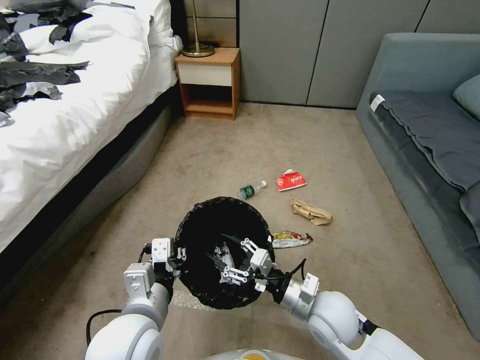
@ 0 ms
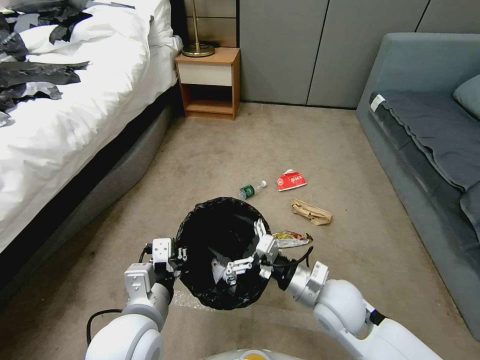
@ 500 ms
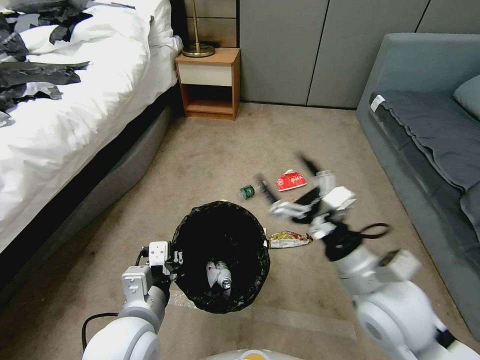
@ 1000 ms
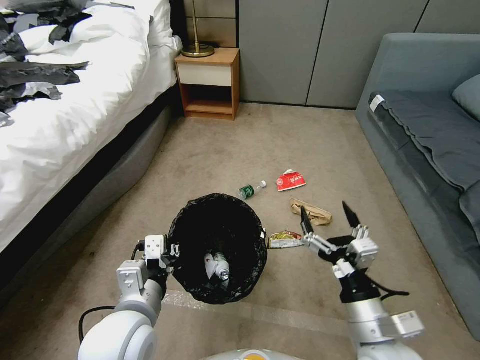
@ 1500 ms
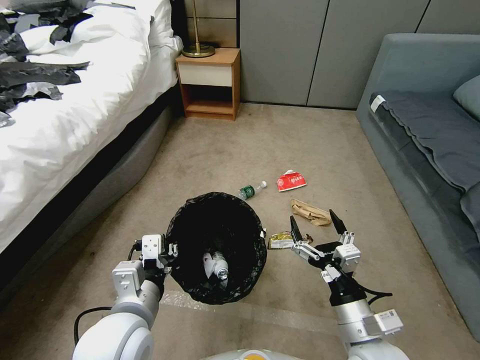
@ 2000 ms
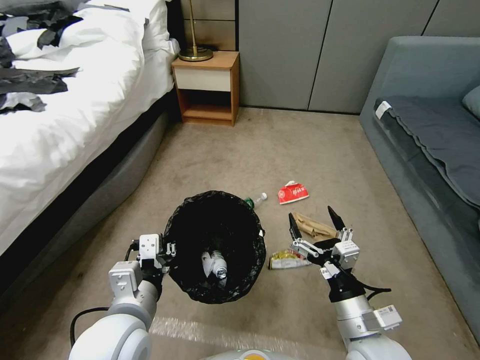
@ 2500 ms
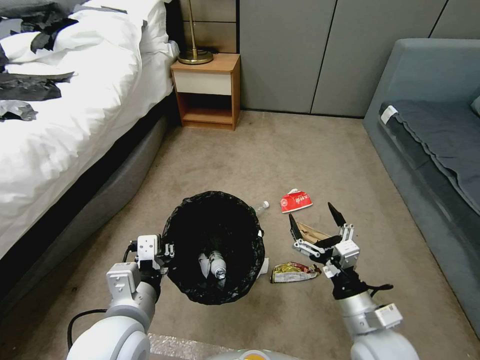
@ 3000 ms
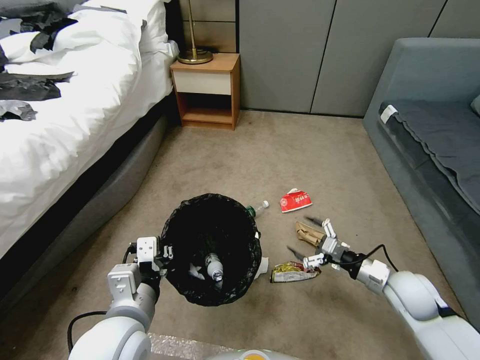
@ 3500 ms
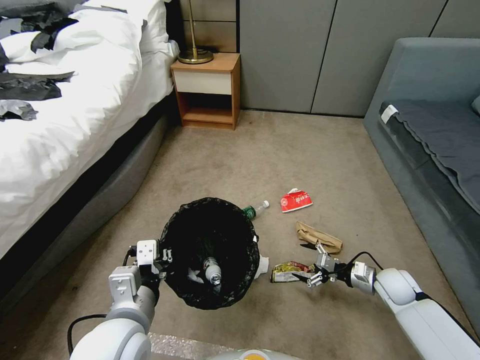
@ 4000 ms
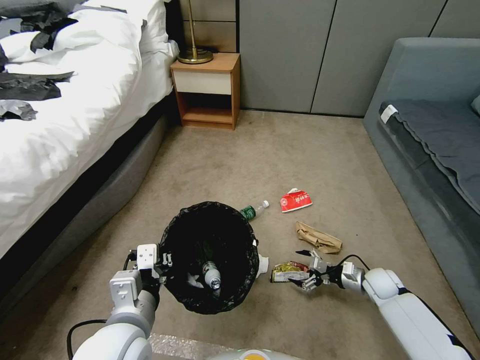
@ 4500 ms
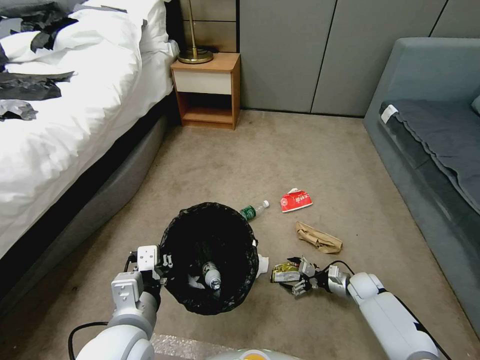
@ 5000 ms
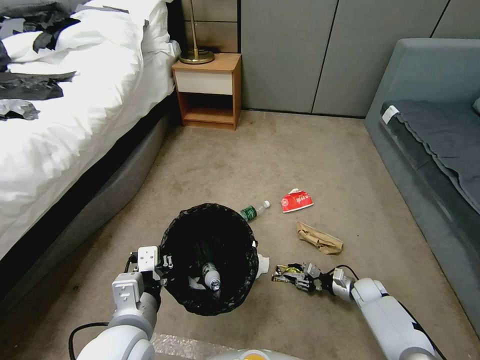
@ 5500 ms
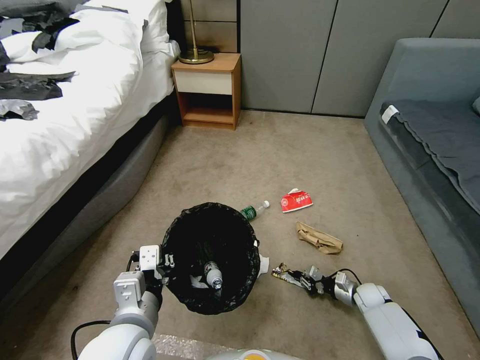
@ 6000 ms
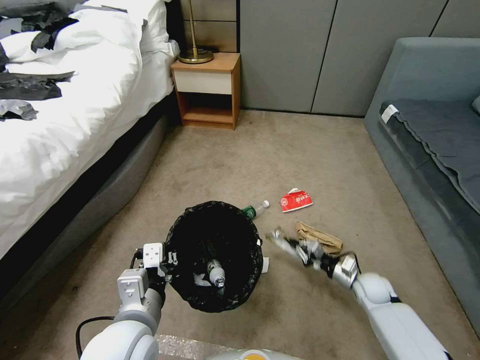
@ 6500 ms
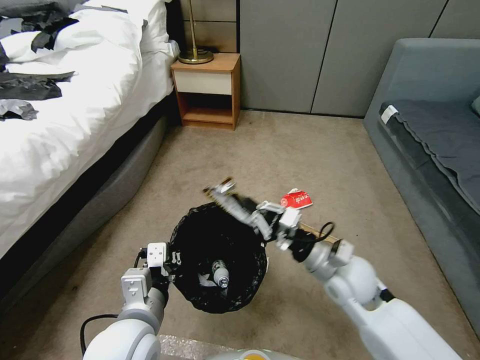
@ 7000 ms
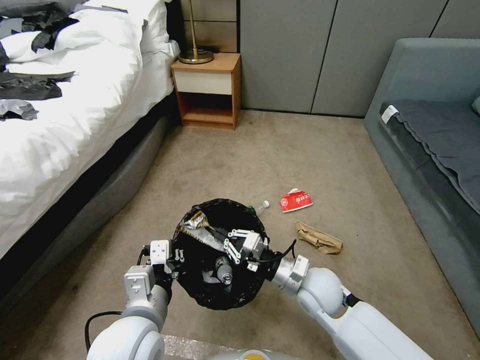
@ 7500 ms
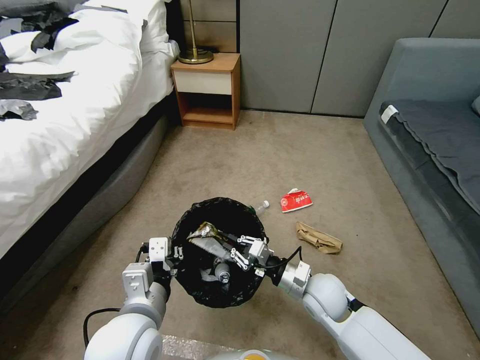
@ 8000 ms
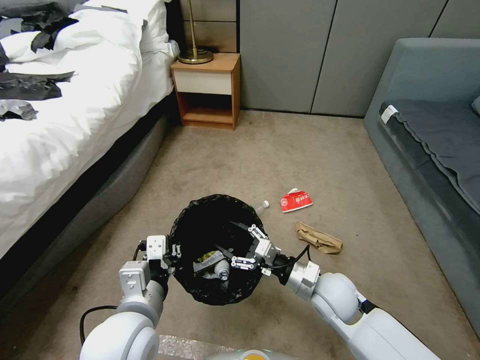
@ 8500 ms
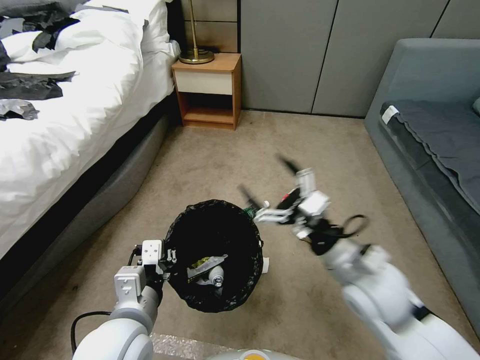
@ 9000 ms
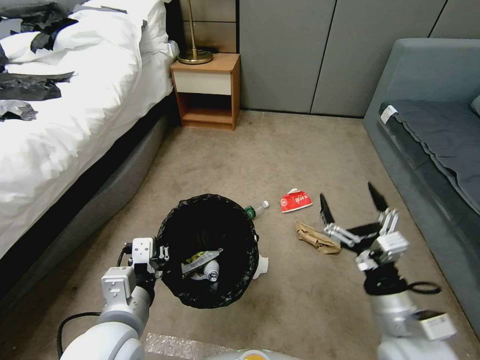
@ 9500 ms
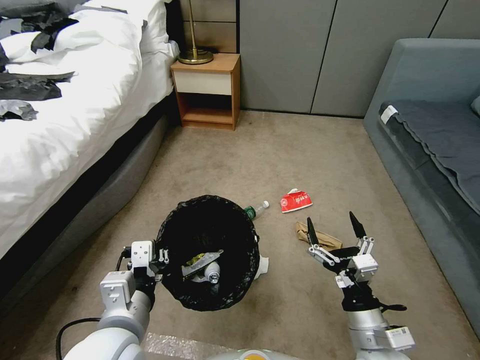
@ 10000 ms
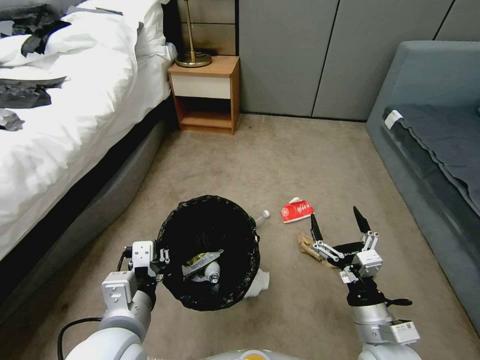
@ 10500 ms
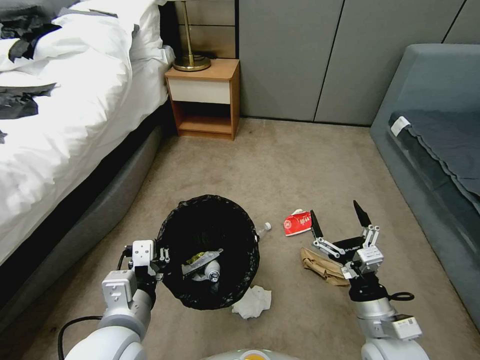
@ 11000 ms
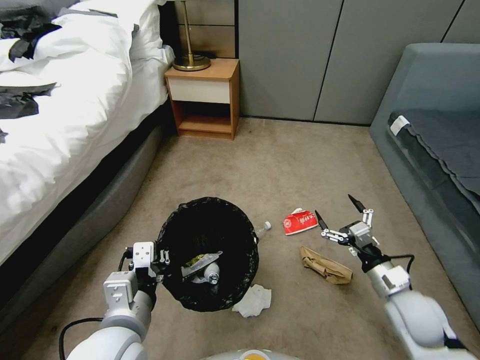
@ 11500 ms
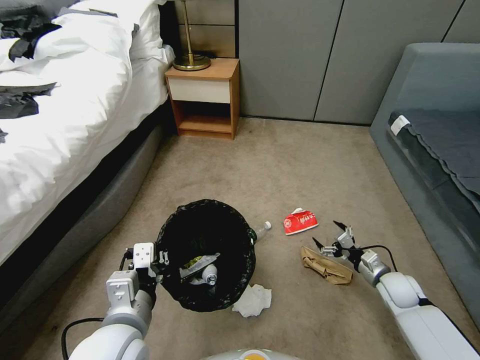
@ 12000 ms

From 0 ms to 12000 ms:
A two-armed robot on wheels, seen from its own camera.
Task of the whole recording: Pick up the trash bin, then pick up the garbage from the floor and place it into the trash bin.
From 0 ms to 2000 ms: The right gripper goes about 10 cm backward, travels upward and back again, approximately 15 cm each way, and opens its fingers.
From 2000 ms to 4000 ms: The right gripper moves to the right, forward and downward, about 30 cm.
From 4000 ms to 6000 ms: The right gripper heads downward, covering roughly 15 cm, and closes up.
From 6000 ms to 8000 ms: The right gripper travels to the left and upward by roughly 30 cm.
From 8000 ms to 10000 ms: The right gripper is displaced backward and to the right by roughly 15 cm, reaches some 15 cm upward, then returns, and opens its fingers.
From 10000 ms to 12000 ms: The right gripper is displaced forward, to the right and downward by roughly 30 cm.

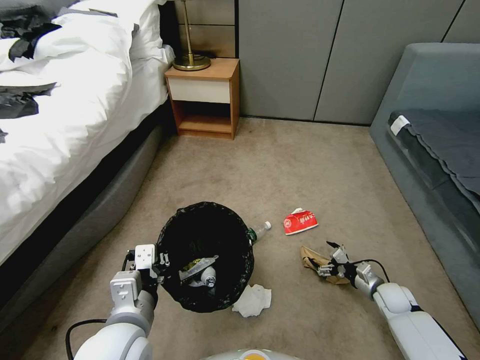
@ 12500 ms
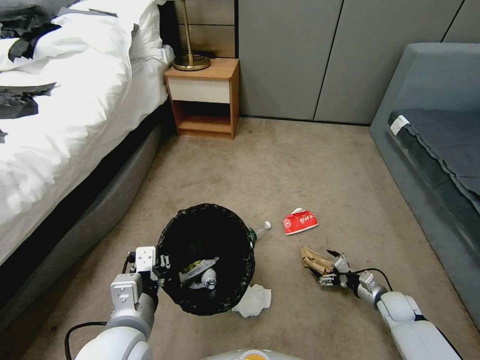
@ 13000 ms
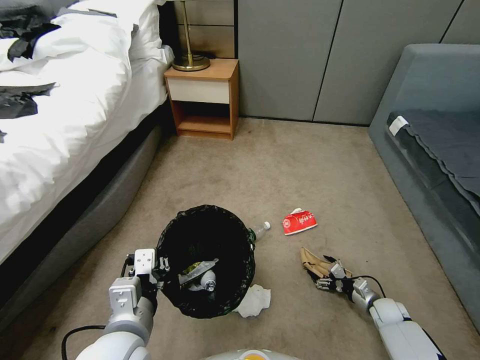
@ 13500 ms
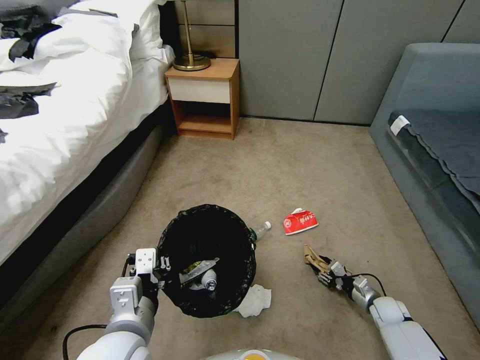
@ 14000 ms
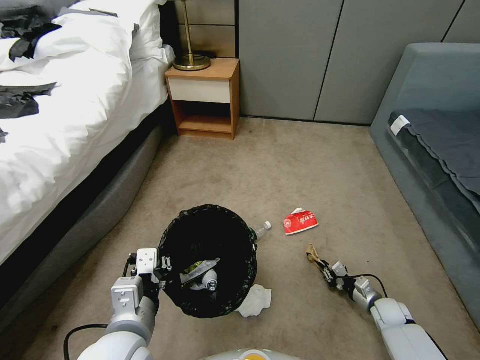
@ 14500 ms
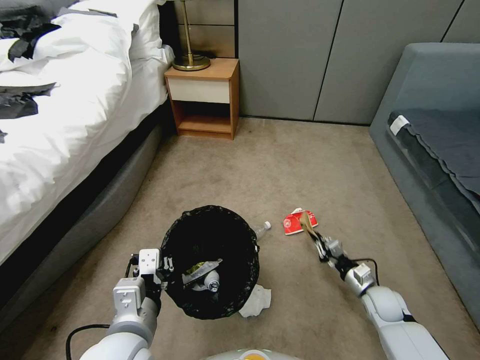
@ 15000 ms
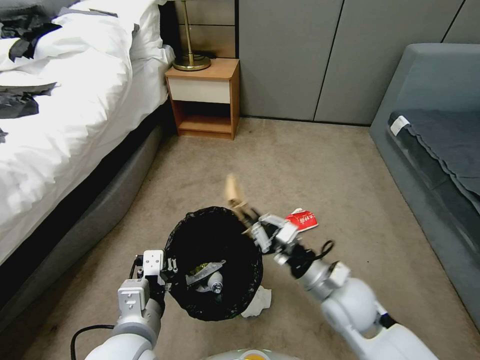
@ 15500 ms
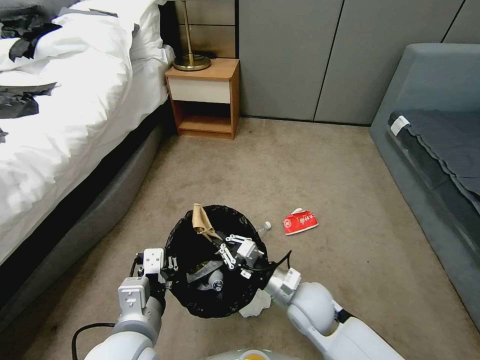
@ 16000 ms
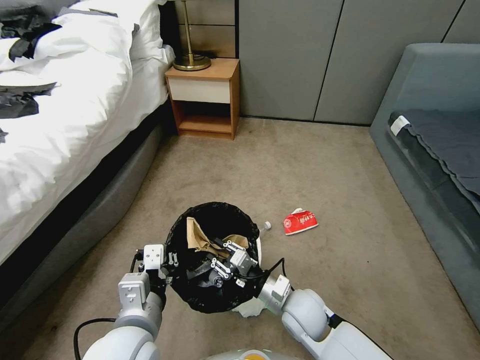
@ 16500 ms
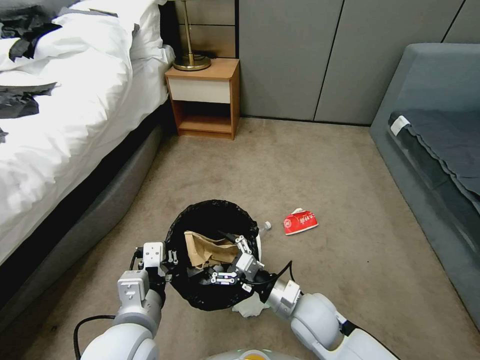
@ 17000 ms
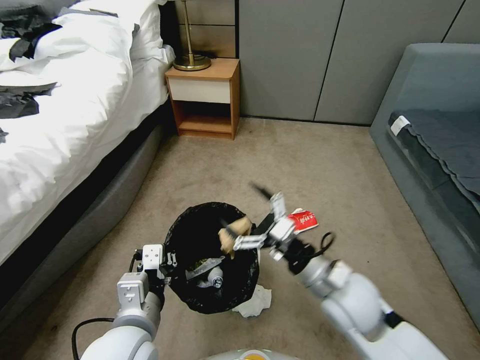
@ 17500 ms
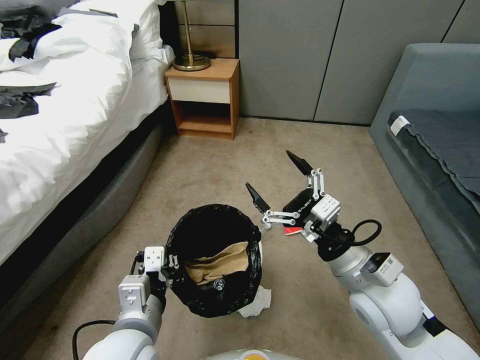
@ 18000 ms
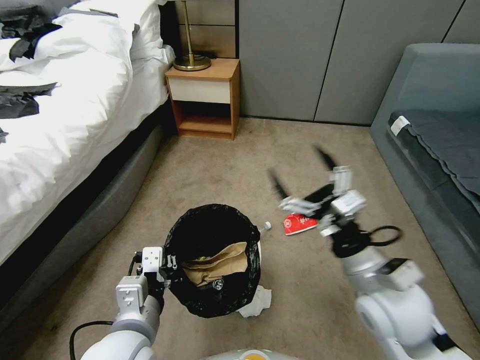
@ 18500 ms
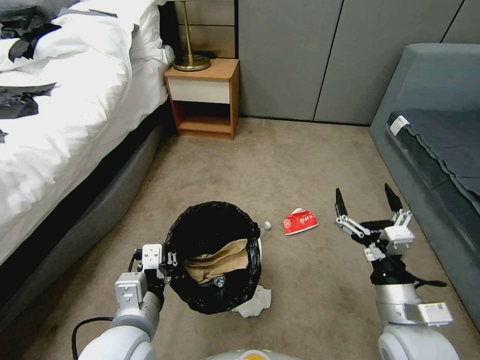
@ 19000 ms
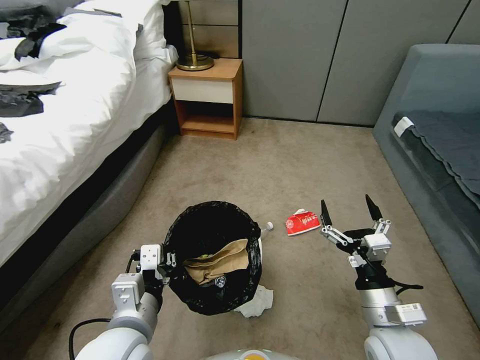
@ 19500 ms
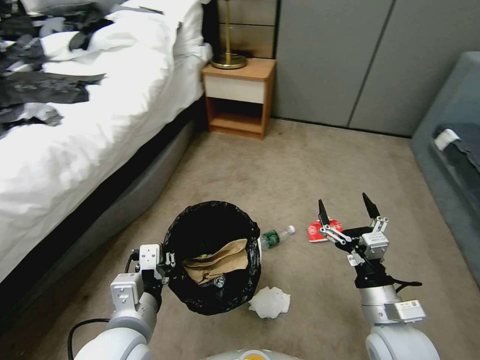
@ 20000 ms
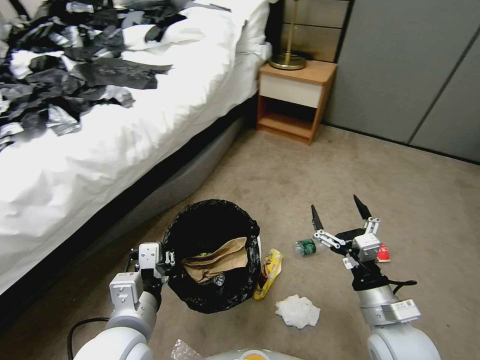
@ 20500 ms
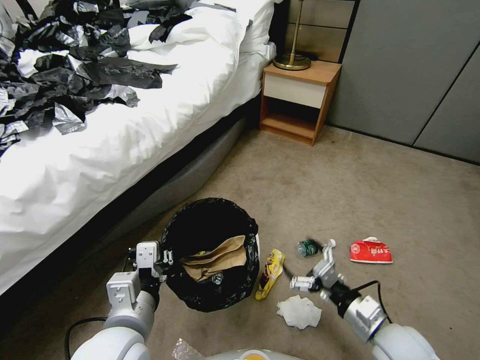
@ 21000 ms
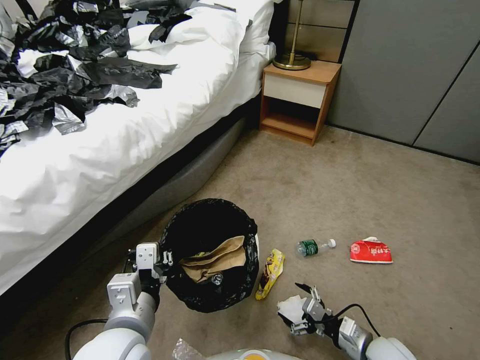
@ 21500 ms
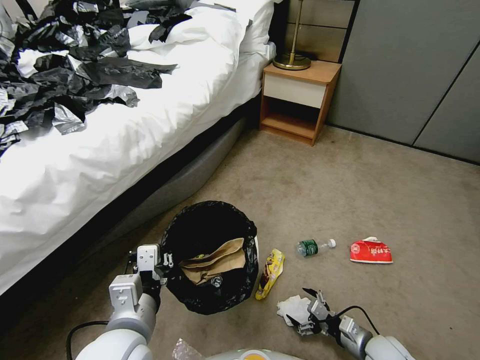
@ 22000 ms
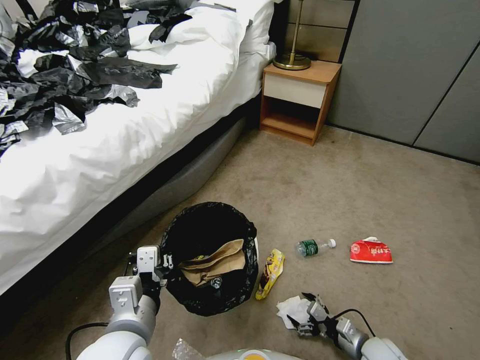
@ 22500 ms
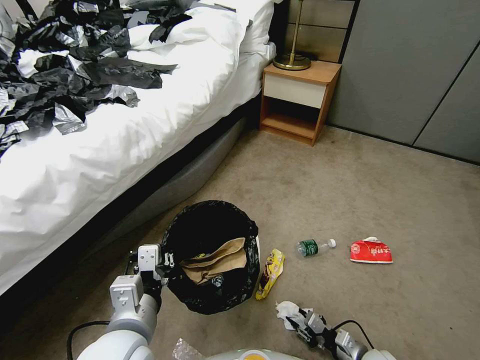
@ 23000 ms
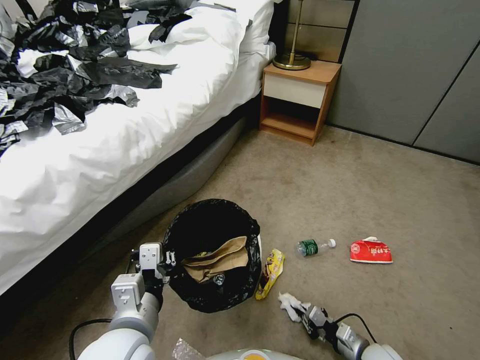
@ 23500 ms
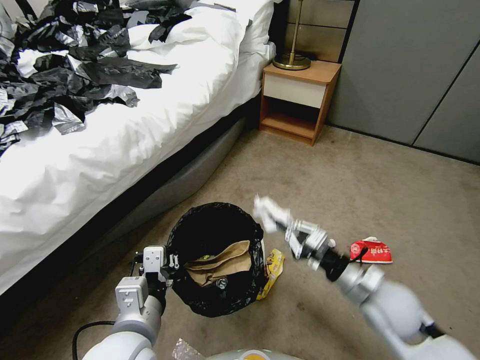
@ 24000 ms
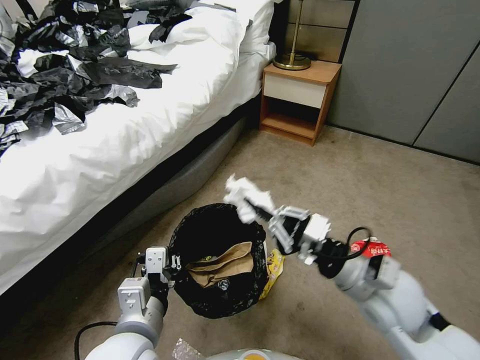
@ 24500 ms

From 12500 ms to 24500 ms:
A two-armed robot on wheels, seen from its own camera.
Task of the whole recording: Pick up the trash bin, then pick up the garbage from the floor and place it into the trash bin.
From 12500 ms to 14500 ms: The right gripper changes place by some 5 cm, and closes up.
From 14500 ms to 16500 ms: The right gripper heads to the left and upward, covering approximately 35 cm.
From 16500 ms to 18500 ms: The right gripper shifts roughly 20 cm upward and to the right, and opens its fingers.
From 18500 ms to 20500 ms: The right gripper travels downward by roughly 10 cm.
From 20500 ms to 22500 ms: The right gripper moves downward, roughly 25 cm.
From 22500 ms to 24500 ms: The right gripper shifts about 30 cm upward, and closes its fingers.

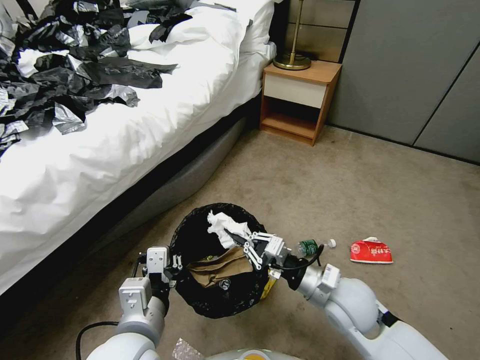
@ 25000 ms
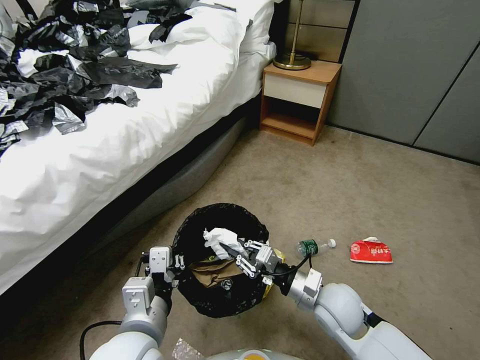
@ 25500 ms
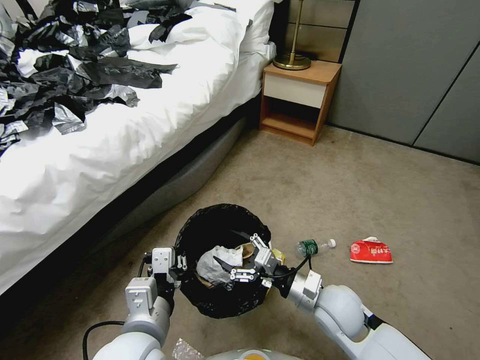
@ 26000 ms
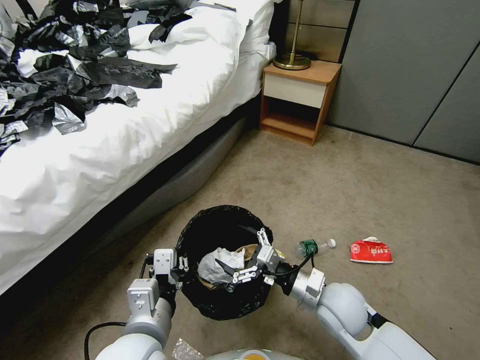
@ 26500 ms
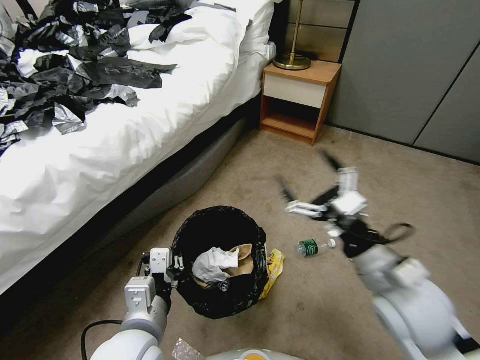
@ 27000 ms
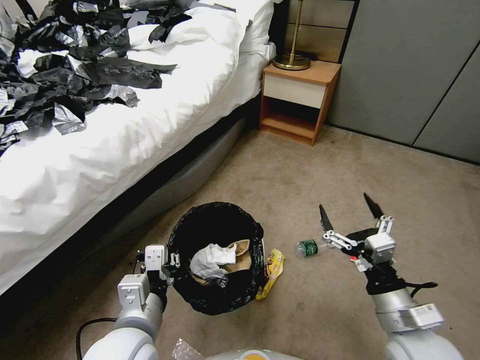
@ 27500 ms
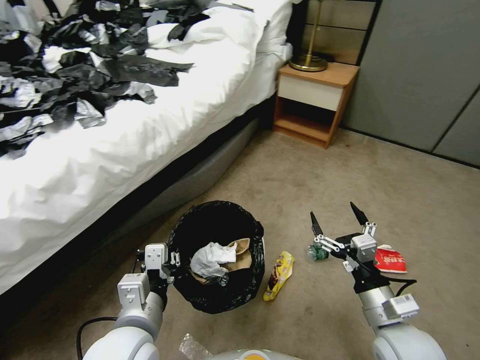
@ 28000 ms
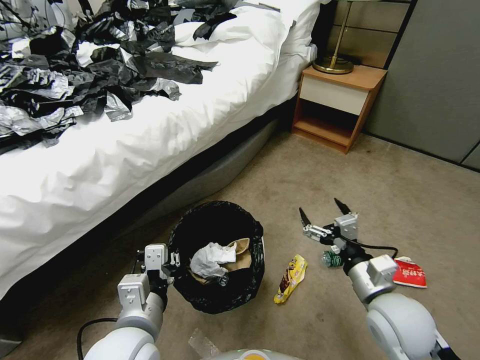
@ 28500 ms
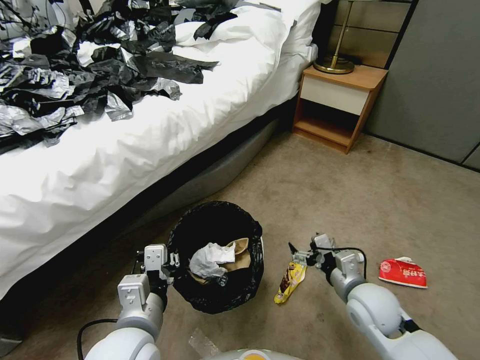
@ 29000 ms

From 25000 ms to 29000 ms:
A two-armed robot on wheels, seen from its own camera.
Task of the whole recording: Pick up the trash bin, then pick up the garbage from the floor and place it into the trash bin.
From 25000 ms to 27000 ms: The right gripper heads upward, covering roughly 10 cm, and opens up.
From 27000 ms to 29000 ms: The right gripper heads downward, covering approximately 15 cm.
